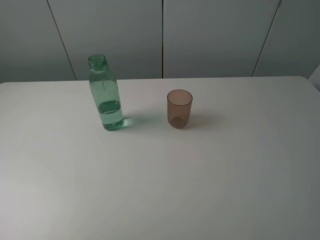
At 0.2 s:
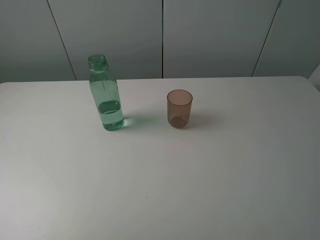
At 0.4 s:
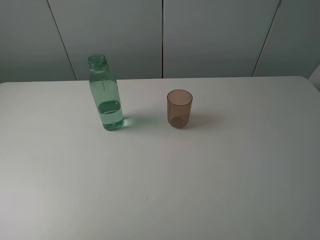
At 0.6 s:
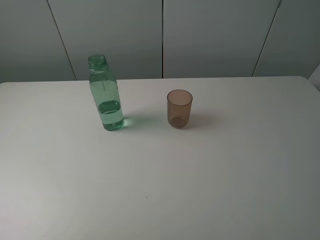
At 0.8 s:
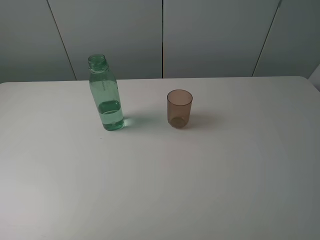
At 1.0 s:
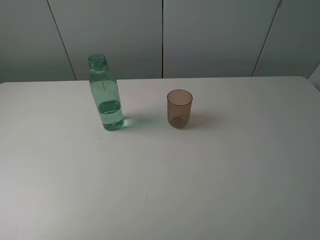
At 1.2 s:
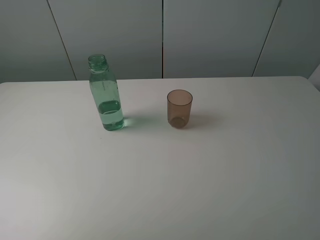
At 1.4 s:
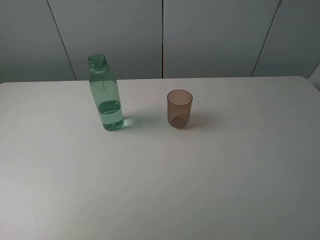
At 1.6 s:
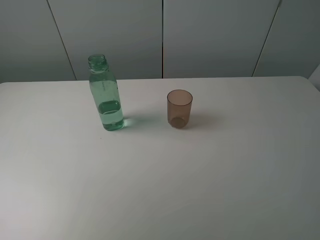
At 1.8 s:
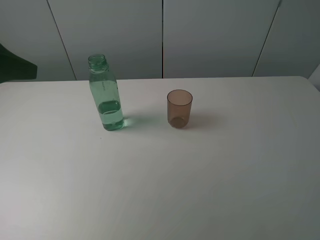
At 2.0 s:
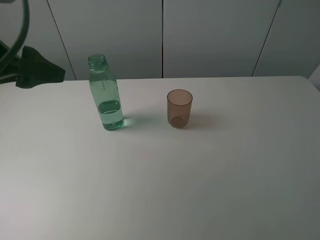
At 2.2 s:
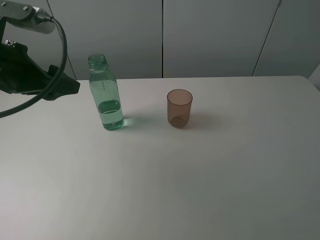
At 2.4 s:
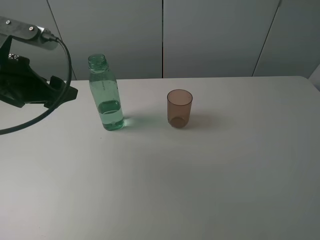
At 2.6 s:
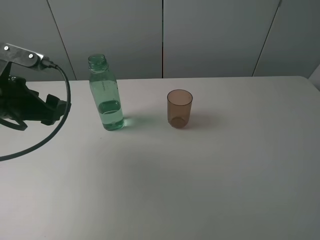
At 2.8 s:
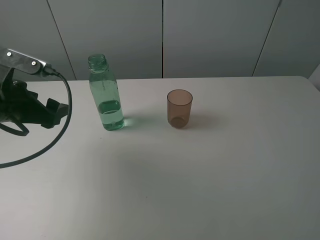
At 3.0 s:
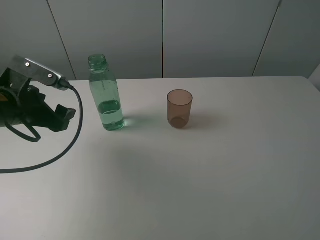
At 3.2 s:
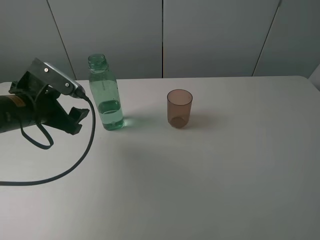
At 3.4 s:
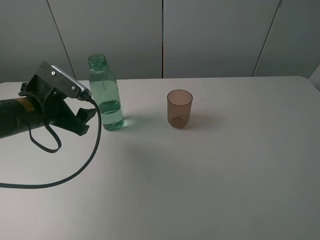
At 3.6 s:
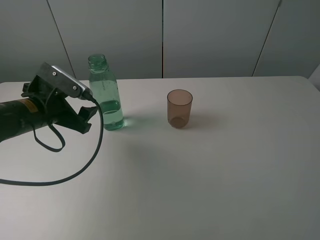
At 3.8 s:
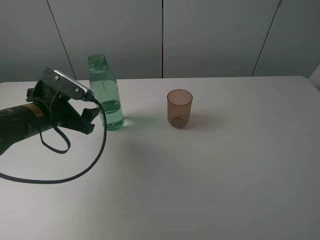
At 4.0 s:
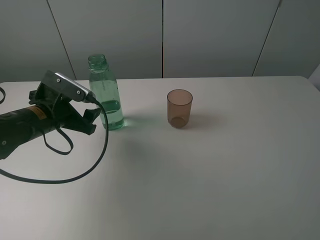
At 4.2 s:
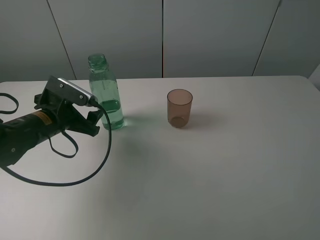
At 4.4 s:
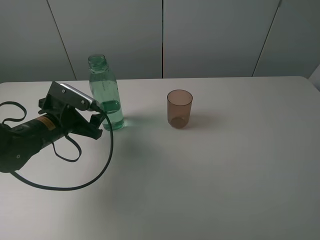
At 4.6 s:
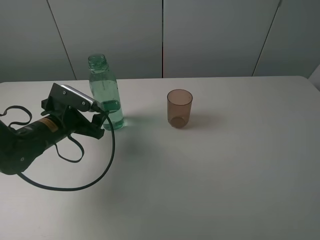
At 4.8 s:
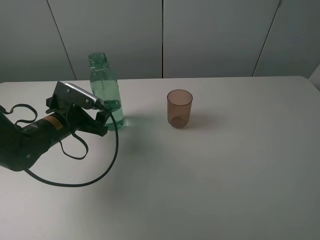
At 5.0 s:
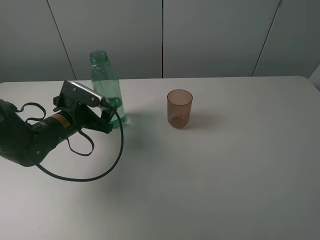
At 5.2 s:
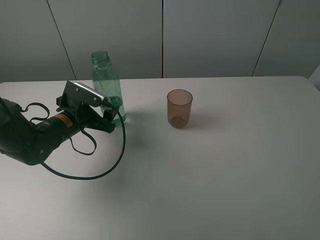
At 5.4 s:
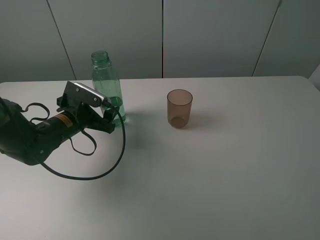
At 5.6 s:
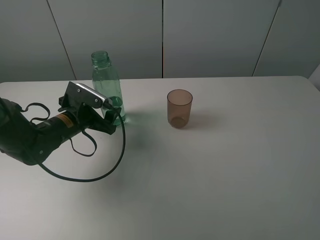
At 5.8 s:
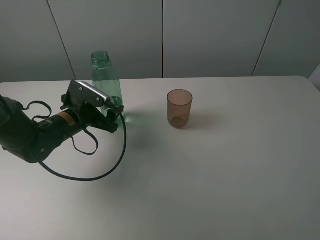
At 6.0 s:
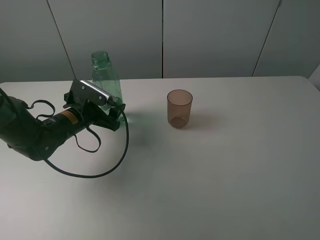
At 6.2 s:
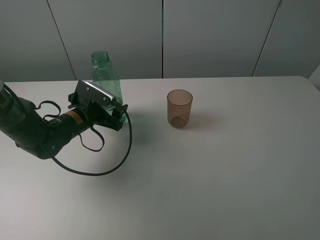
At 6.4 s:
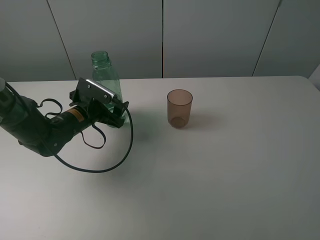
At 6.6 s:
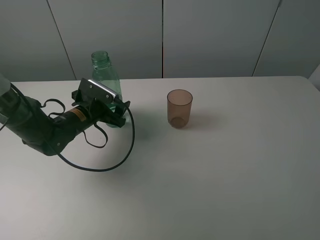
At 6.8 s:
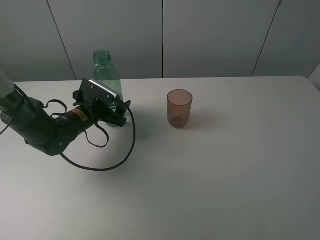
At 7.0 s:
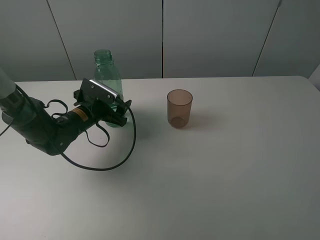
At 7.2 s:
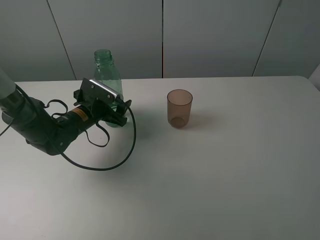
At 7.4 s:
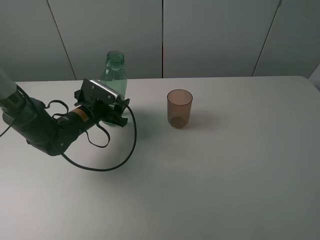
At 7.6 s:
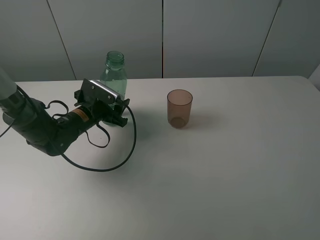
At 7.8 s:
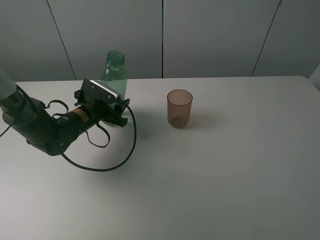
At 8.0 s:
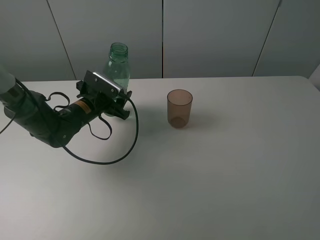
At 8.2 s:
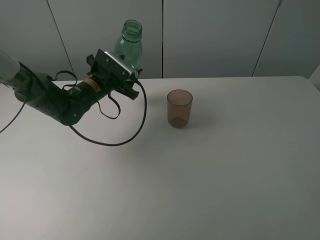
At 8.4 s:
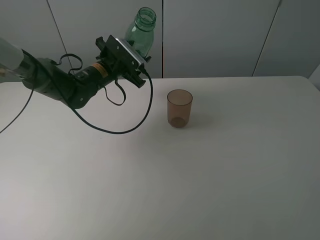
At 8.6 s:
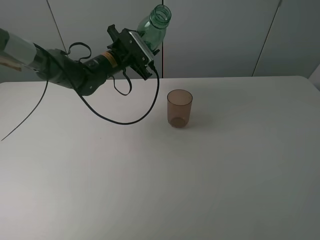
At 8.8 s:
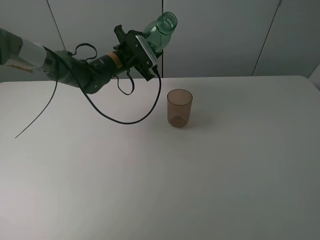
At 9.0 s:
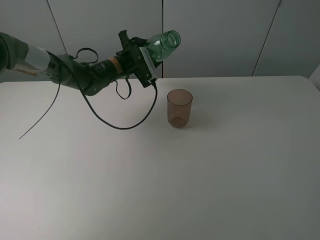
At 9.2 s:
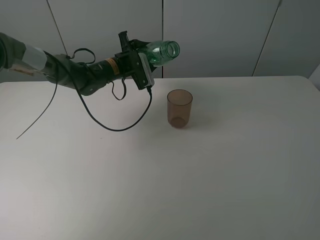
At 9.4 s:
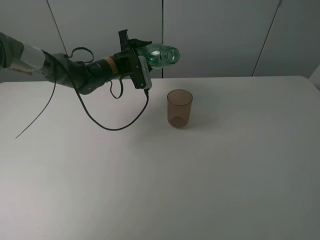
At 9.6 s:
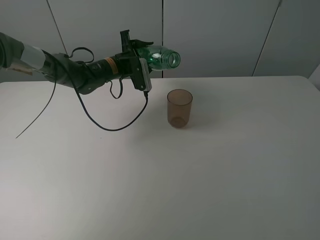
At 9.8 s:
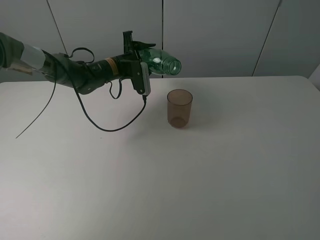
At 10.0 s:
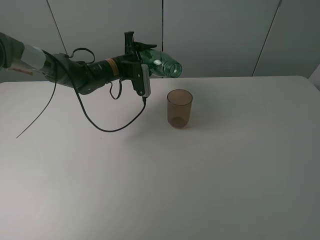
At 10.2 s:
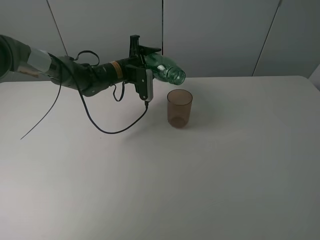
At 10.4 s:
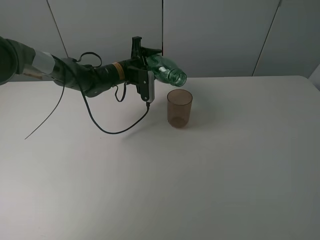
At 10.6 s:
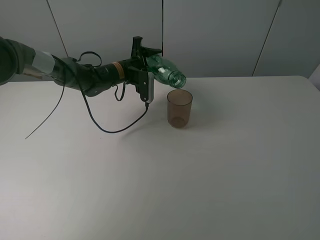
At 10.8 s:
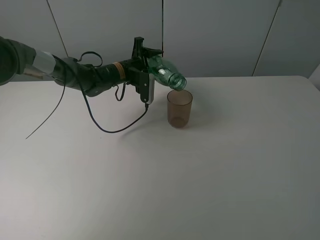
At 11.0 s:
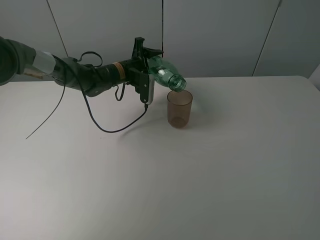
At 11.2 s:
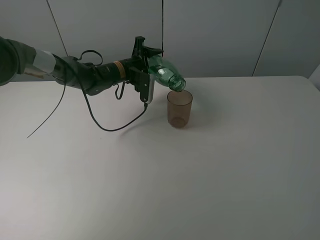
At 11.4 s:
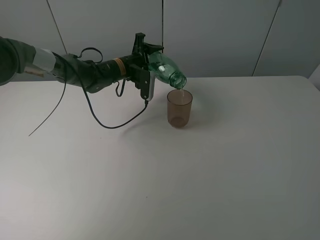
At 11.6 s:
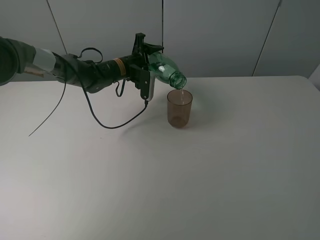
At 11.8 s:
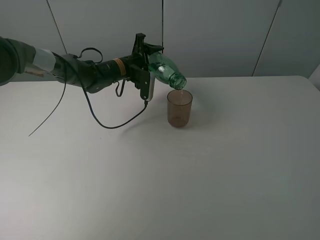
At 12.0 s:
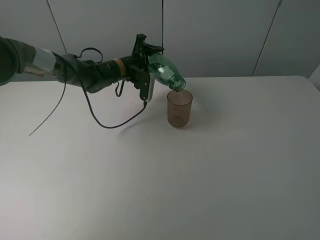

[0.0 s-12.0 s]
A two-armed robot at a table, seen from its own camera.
Task of the whole recording: pick up the bottle filled with water and pour it into the pink cup.
Step, 0.0 to 7.8 s: Grasp the green bottle with the left gripper.
1.6 to 3.0 s: The left gripper is displaced downward and forward by some 20 cm.
3.0 to 4.4 s: The left gripper is displaced downward by about 5 cm.
4.4 to 6.0 s: The left gripper shifts by roughly 5 cm.
6.0 to 7.6 s: The left gripper closes its fingers.
7.6 to 9.0 s: The left gripper travels forward, to the right and upward by approximately 15 cm.
10.4 to 12.0 s: The grippers stay close to where they were, moving slightly.

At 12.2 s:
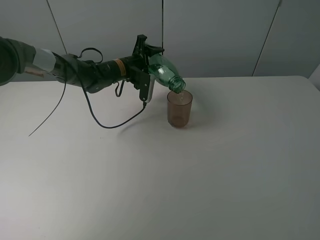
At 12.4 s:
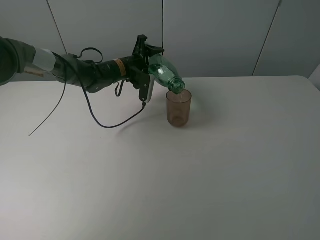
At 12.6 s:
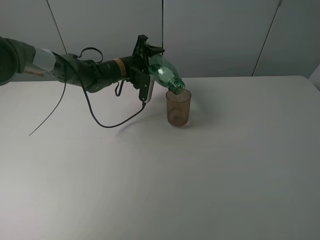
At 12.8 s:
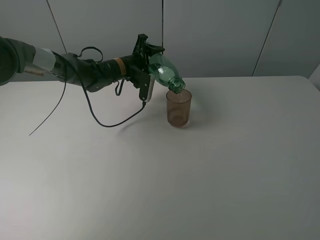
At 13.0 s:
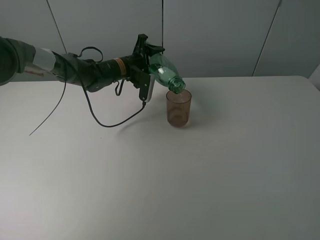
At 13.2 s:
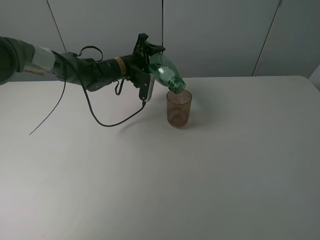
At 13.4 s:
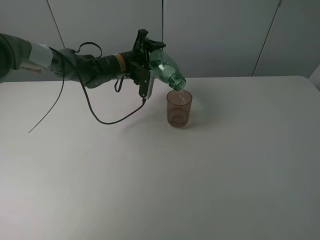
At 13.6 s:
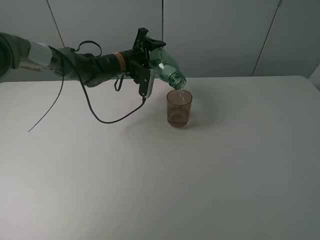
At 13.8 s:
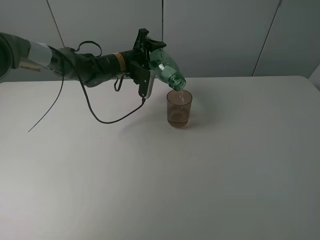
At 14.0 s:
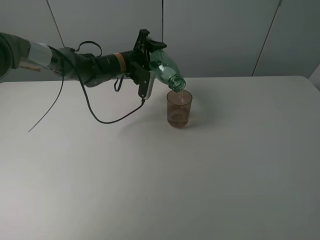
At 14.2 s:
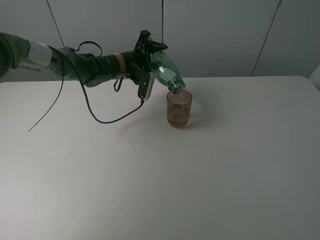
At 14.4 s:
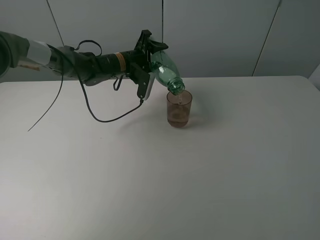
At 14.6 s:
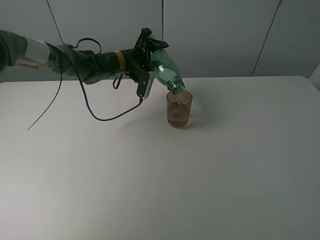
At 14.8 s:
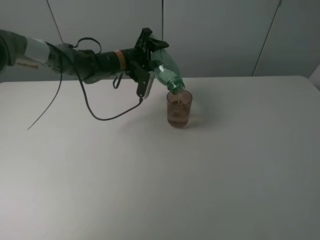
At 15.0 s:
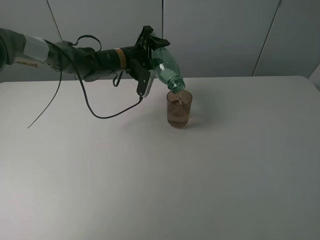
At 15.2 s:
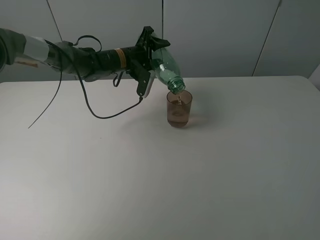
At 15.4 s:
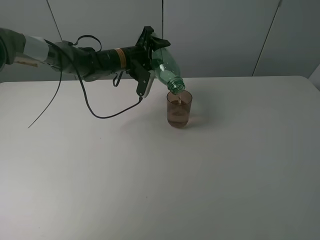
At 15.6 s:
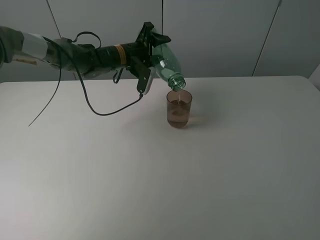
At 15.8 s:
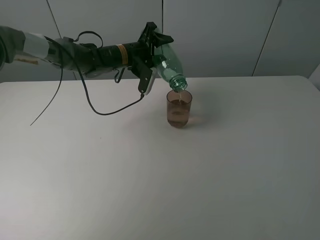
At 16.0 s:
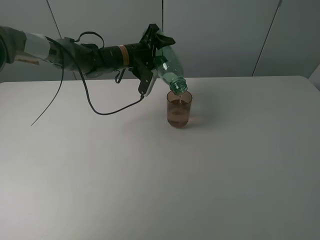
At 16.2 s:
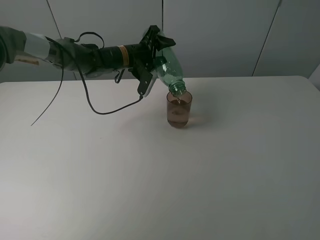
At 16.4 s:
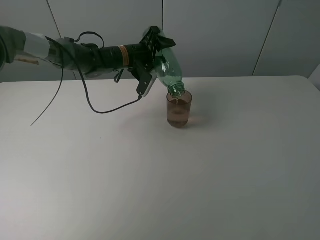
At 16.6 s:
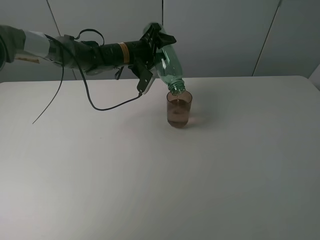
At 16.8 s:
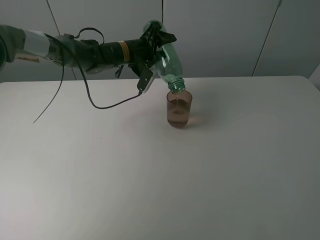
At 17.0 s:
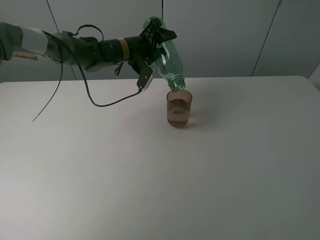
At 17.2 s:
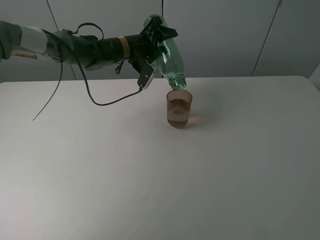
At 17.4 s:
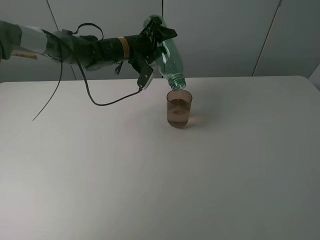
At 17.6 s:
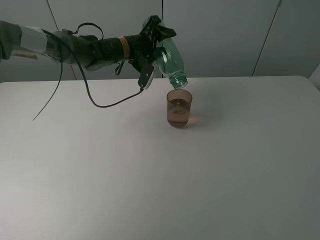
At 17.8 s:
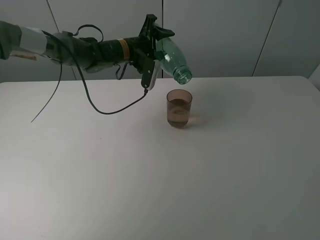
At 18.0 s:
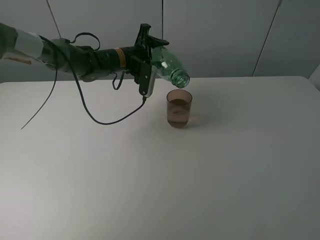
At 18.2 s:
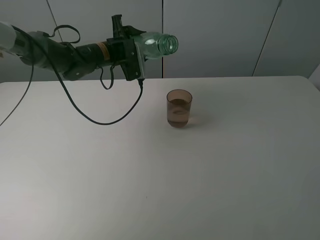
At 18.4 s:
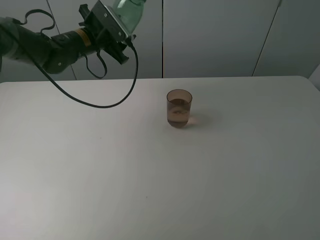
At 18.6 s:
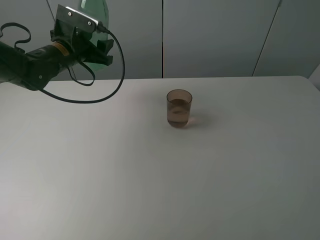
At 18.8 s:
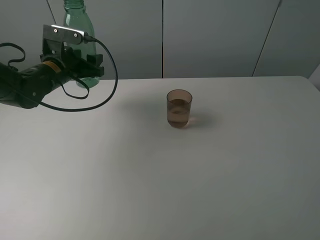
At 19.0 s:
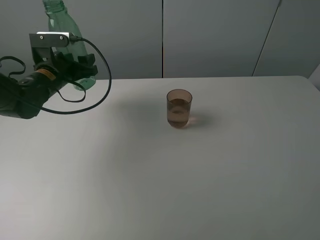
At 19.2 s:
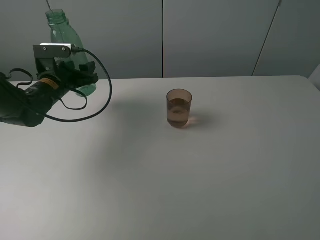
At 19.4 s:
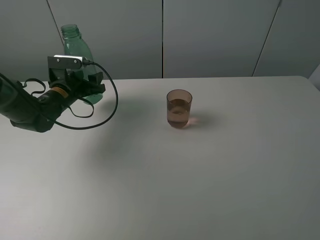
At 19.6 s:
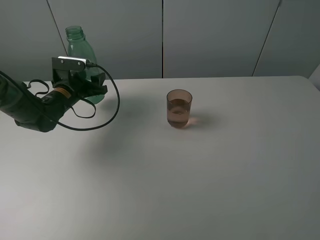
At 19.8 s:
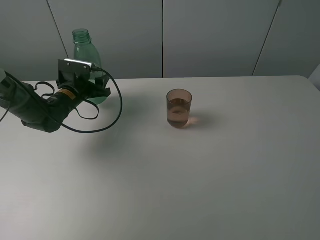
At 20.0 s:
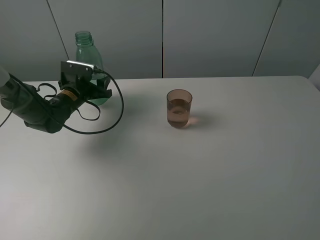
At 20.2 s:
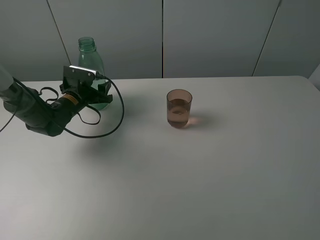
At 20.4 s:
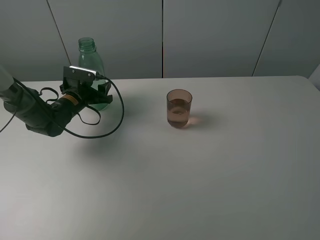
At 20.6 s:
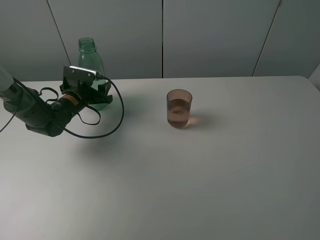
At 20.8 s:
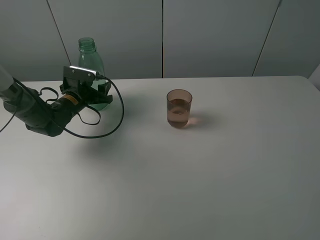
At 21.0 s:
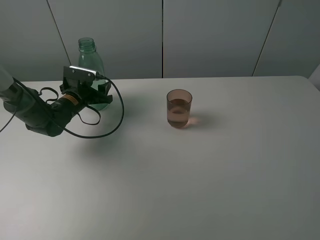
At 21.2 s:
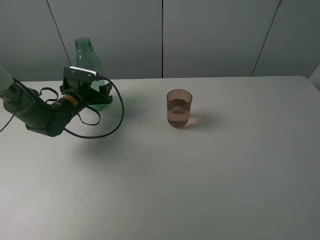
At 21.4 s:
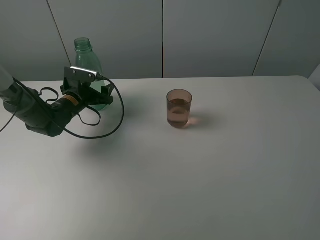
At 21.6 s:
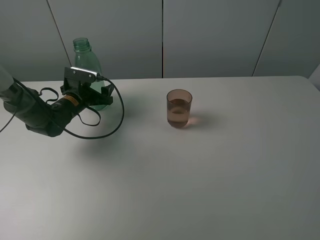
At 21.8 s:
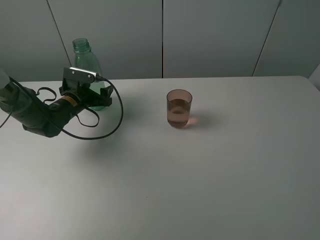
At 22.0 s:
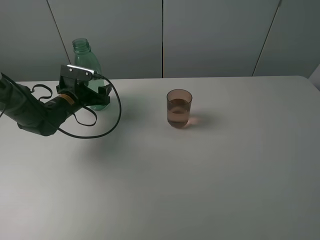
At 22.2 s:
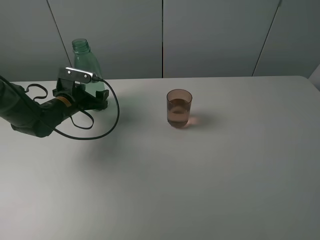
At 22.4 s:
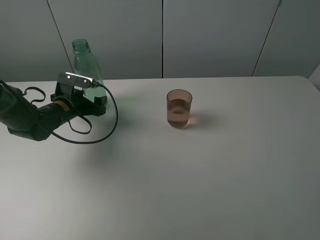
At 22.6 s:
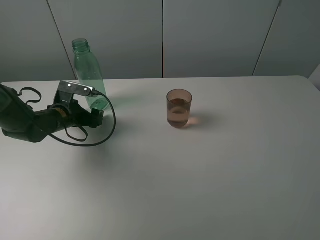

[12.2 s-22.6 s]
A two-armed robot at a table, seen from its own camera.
Task of the whole recording: pick up the bottle filled with water and pour it into the pink cup.
Step, 12.2 to 17.6 s: Pour water from green bottle to pink cup with the left gripper.
Step, 17.8 to 21.8 s: Place the green bottle with the left gripper.
12.2 to 15.2 s: There are only small adjustments of the grippers.
15.2 to 16.6 s: The grippers stay close to where they were, moving slightly.
16.6 to 18.2 s: The left gripper moves to the left, some 5 cm.
18.2 to 19.6 s: The left gripper moves to the left, downward and backward, some 15 cm.
19.6 to 21.2 s: The left gripper opens its fingers.
21.2 to 22.6 s: The left gripper shifts roughly 5 cm backward.
